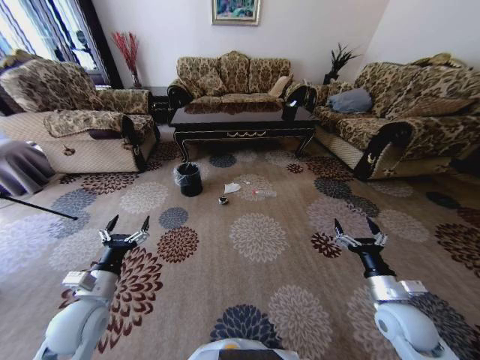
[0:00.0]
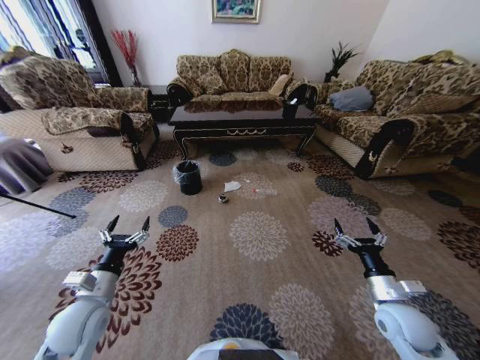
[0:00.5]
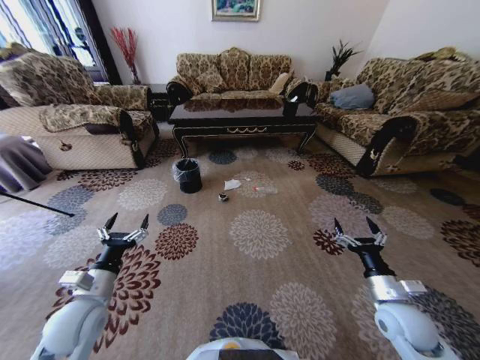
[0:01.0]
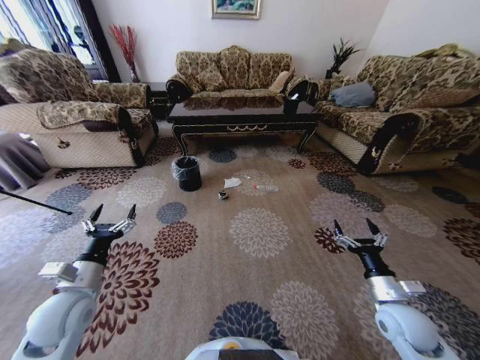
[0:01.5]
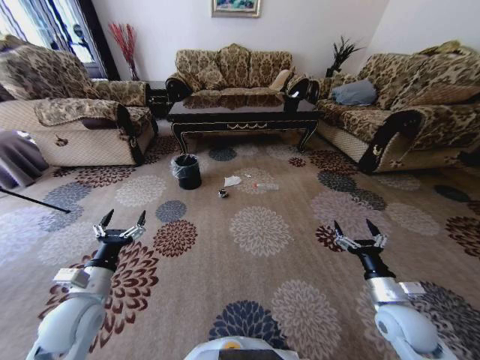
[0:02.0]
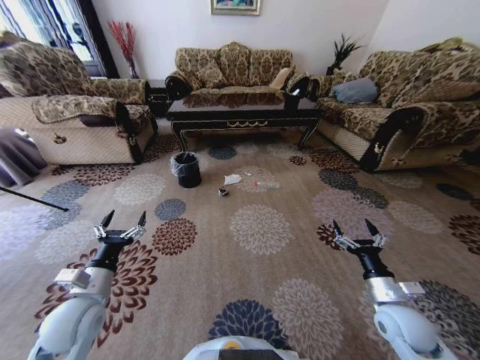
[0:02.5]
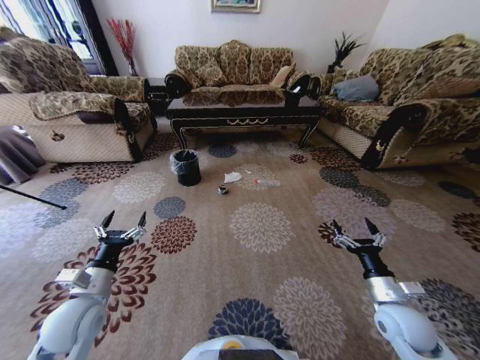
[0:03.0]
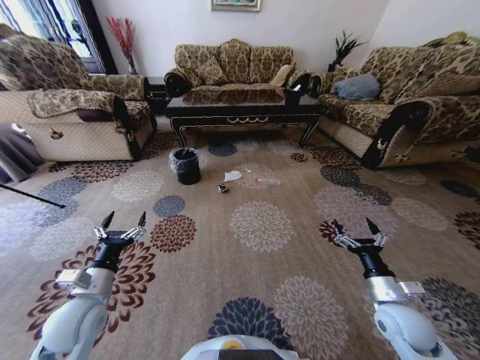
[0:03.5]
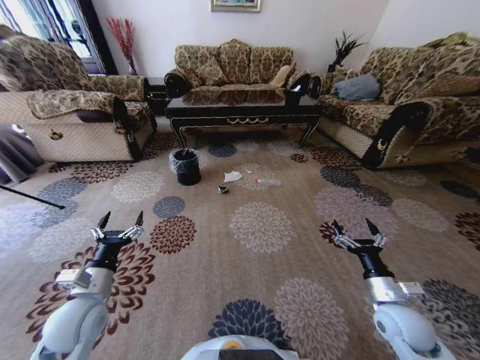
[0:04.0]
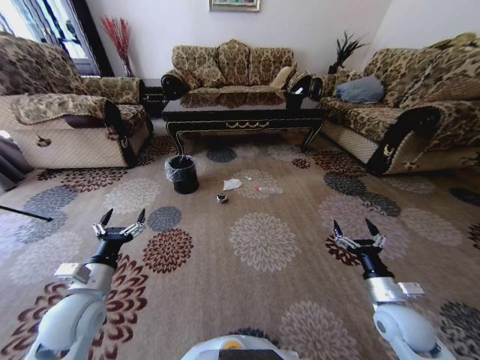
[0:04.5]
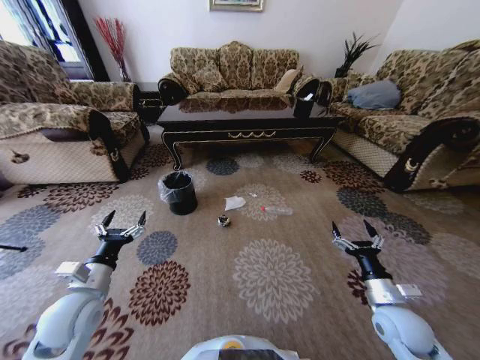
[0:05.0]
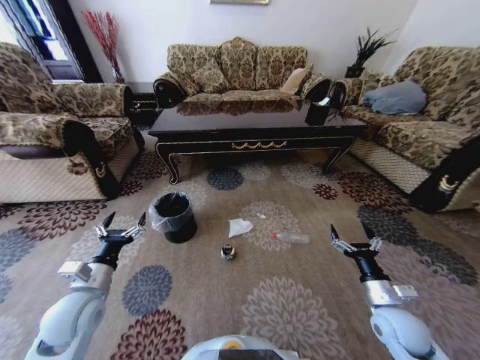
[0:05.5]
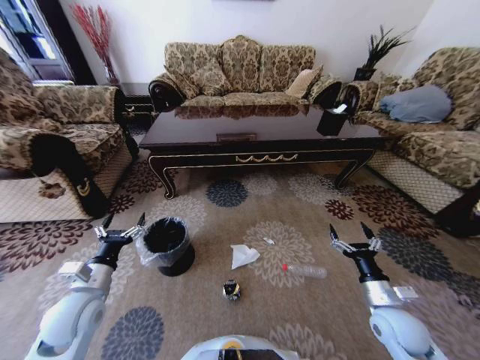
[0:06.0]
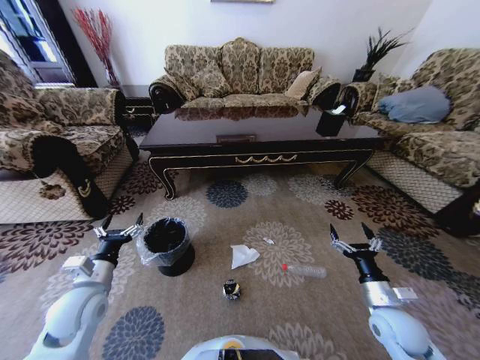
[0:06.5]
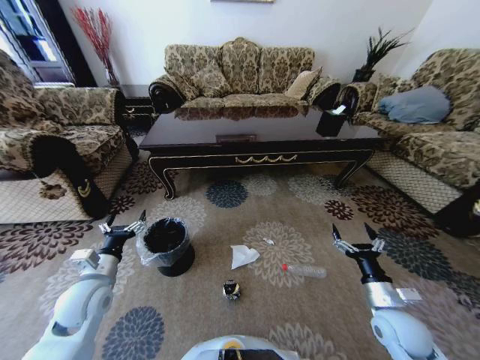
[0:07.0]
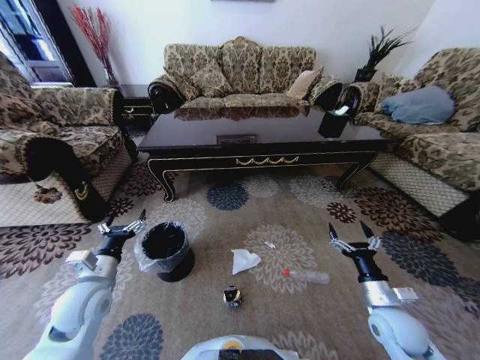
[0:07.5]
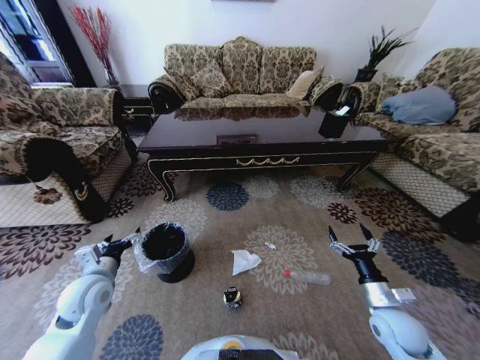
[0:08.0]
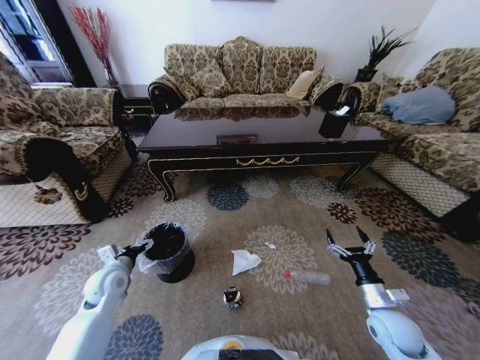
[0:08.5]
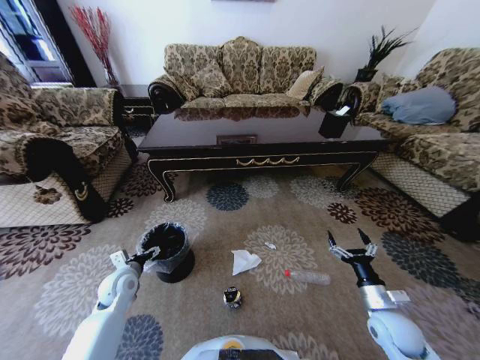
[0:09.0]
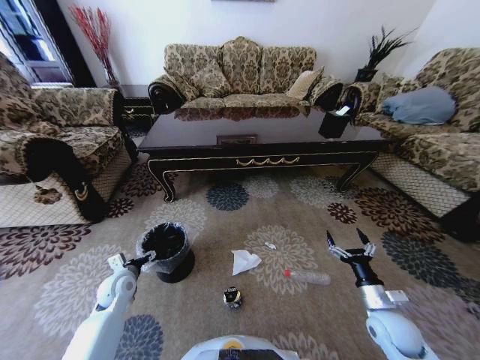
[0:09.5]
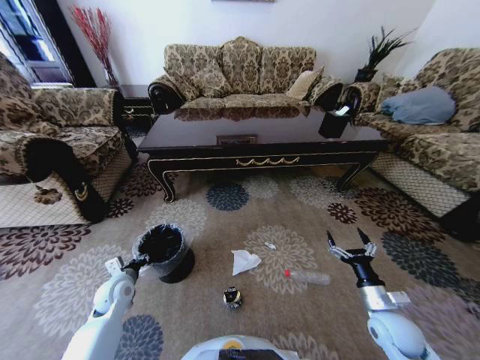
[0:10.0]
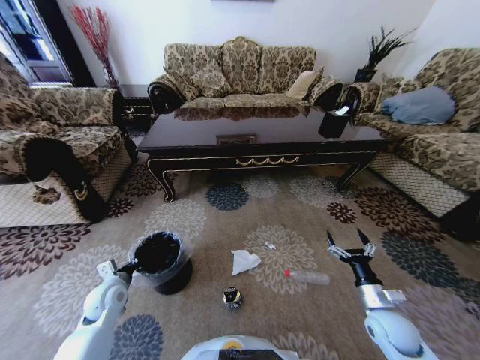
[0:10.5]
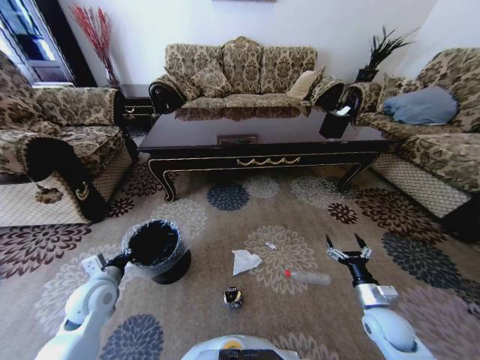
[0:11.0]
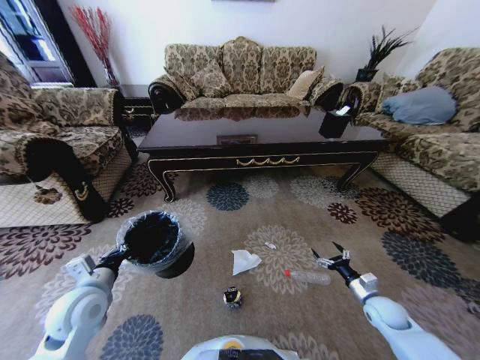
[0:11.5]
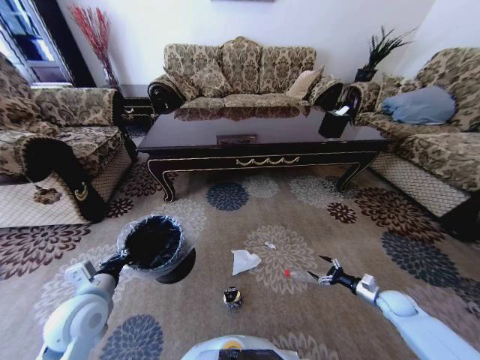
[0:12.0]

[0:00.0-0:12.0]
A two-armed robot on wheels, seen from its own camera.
Task of the whole recording: Move to the front of the table and pick up the trash from the floor, then place it into the trash bin.
0:08.0 to 0:10.0: The left gripper shifts about 10 cm downward, and closes up.
0:10.0 to 0:12.0: The left gripper moves upward and backward, about 15 cm, and closes up; the right gripper travels to the right, downward and forward by roughly 20 cm.

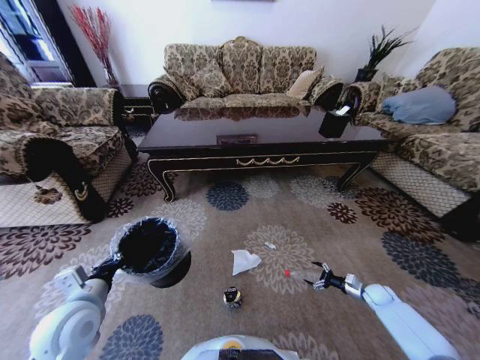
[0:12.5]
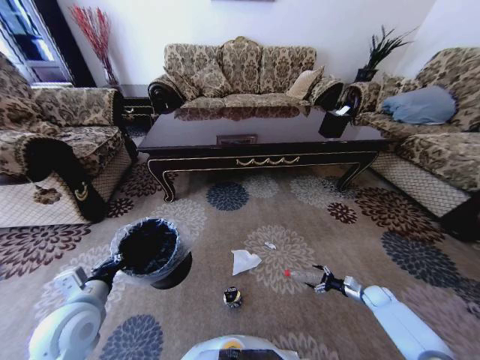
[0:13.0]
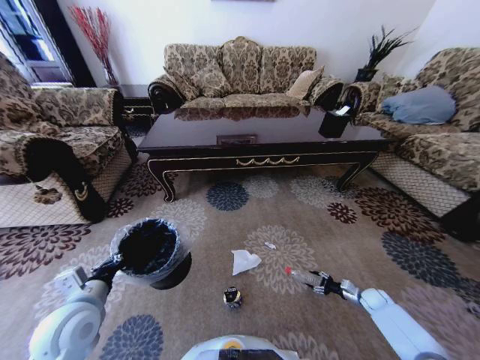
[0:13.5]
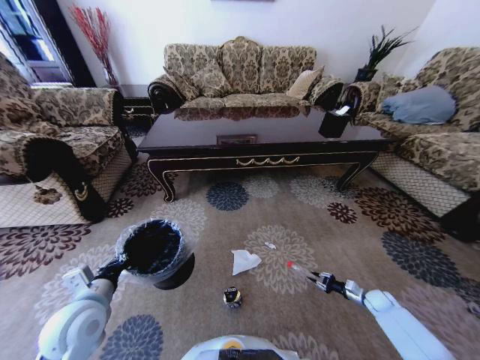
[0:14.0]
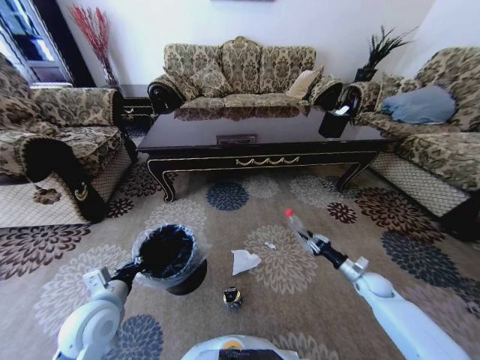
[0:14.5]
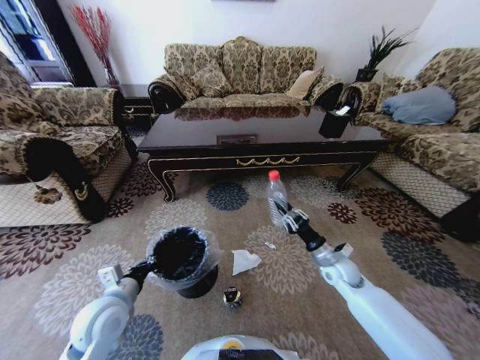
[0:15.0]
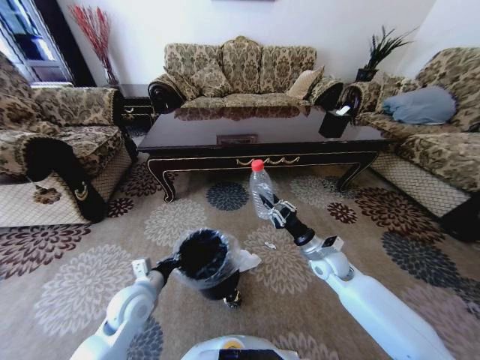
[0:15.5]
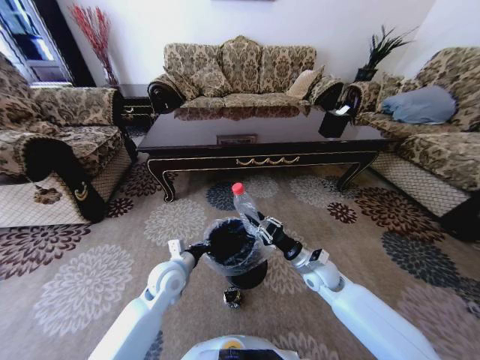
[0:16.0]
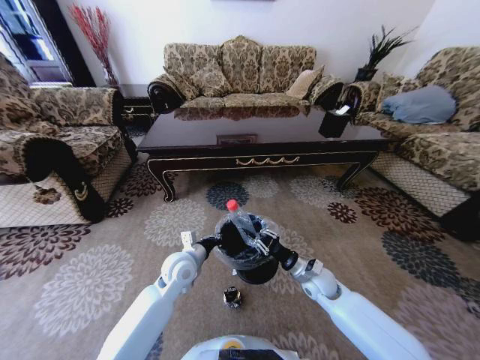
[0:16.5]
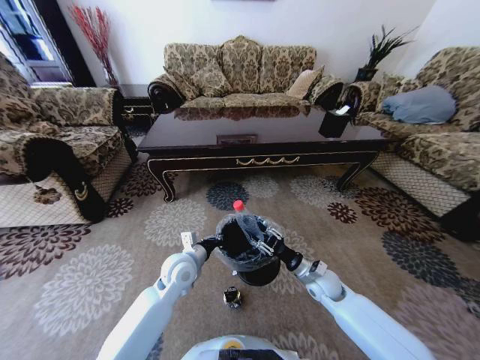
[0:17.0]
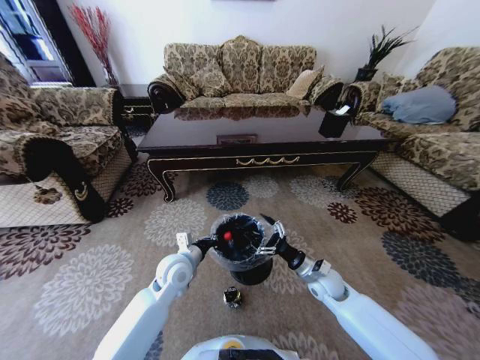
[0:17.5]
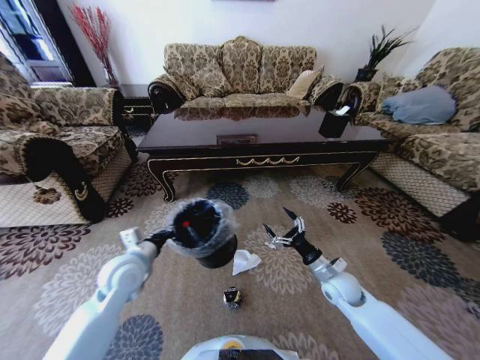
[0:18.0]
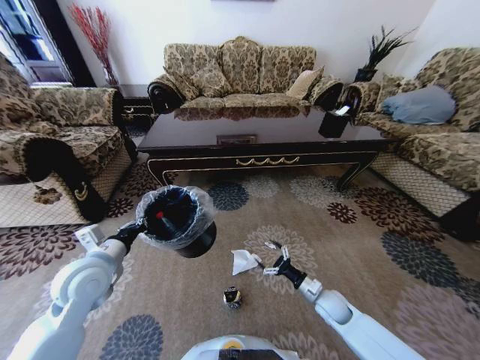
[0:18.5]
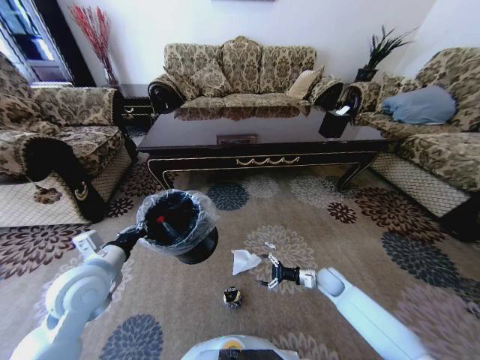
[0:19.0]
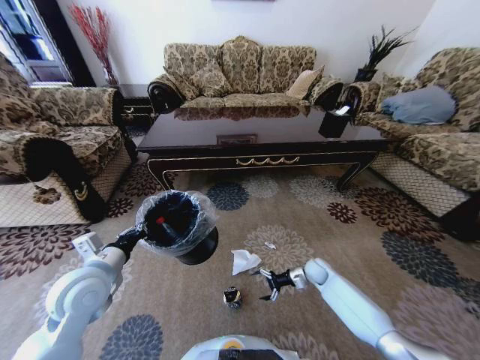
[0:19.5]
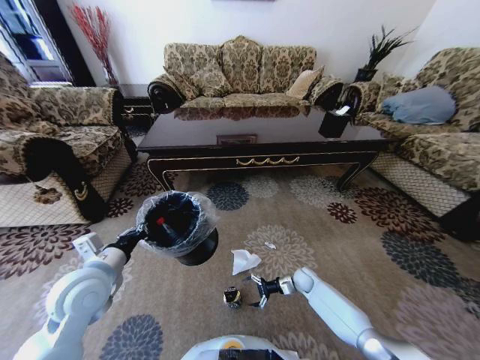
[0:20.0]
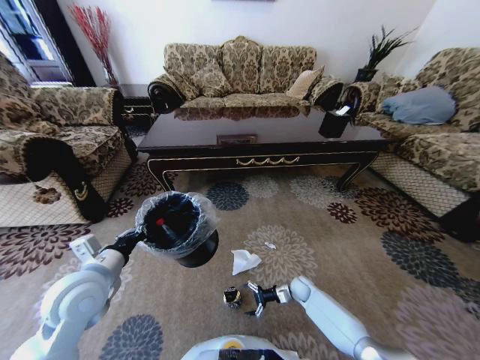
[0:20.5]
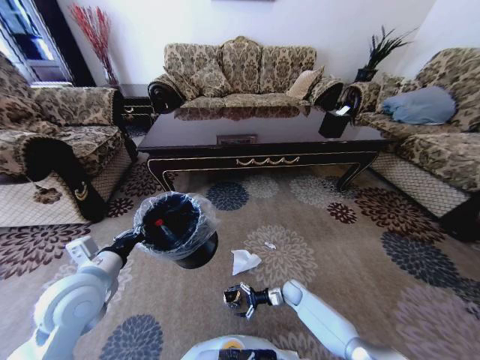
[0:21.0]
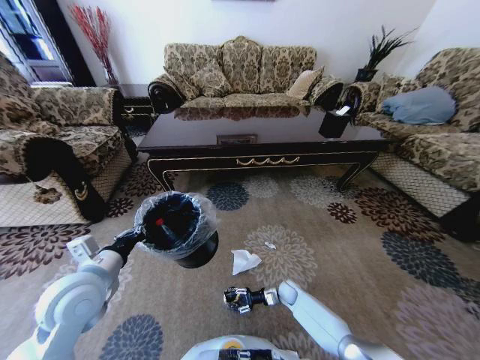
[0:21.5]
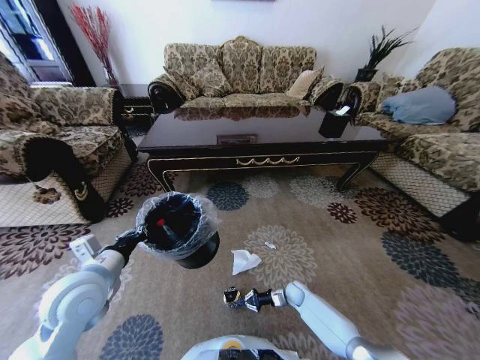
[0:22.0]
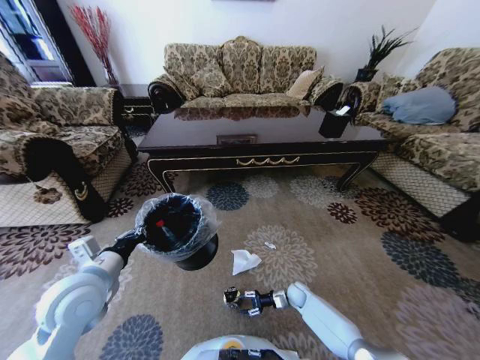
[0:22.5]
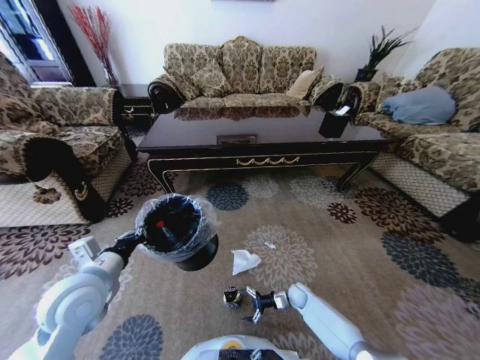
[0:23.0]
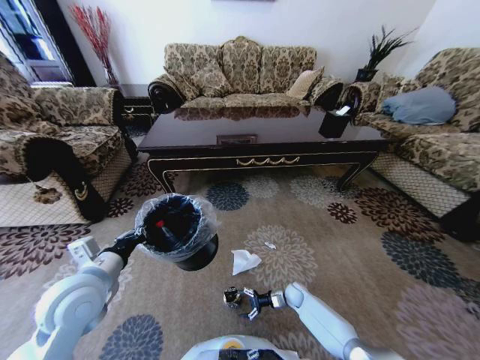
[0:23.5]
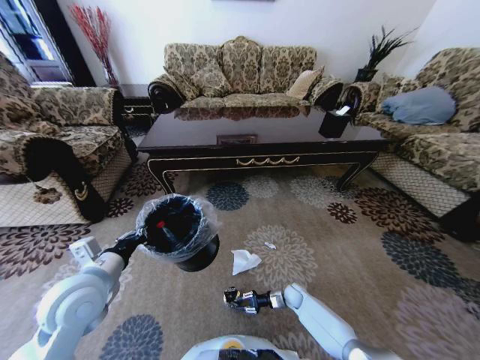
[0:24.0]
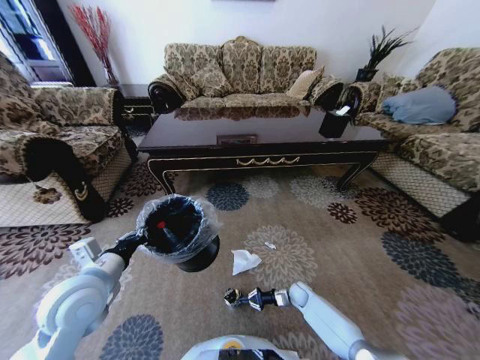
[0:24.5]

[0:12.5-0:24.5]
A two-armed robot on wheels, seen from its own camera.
Task of the whole recording: Move to the front of the table and pick up the trash from the floor, then place it into the trash bin.
0:12.5 to 0:14.5: The right gripper shifts approximately 10 cm upward and to the left, and closes up.
0:14.5 to 0:16.5: The right gripper shifts some 25 cm to the left; the left gripper travels to the right and forward by some 20 cm.
0:16.5 to 0:18.5: The left gripper moves to the left and upward, some 20 cm. The right gripper goes approximately 10 cm downward and to the right, and opens its fingers.
0:18.5 to 0:20.5: The right gripper moves downward and forward, approximately 15 cm.
0:20.5 to 0:22.5: The right gripper closes its fingers.
0:22.5 to 0:24.5: The right gripper closes its fingers.

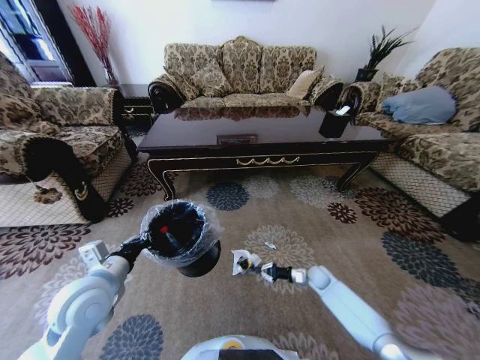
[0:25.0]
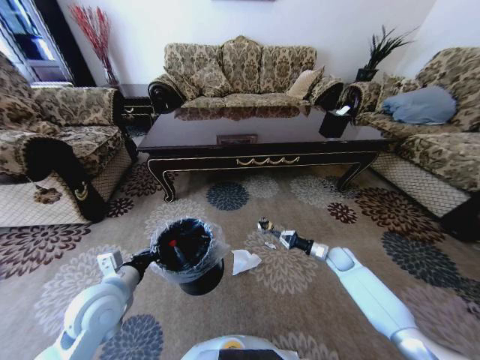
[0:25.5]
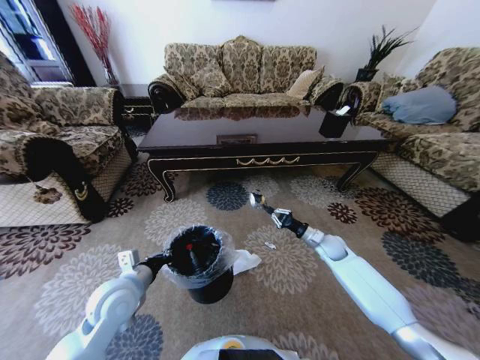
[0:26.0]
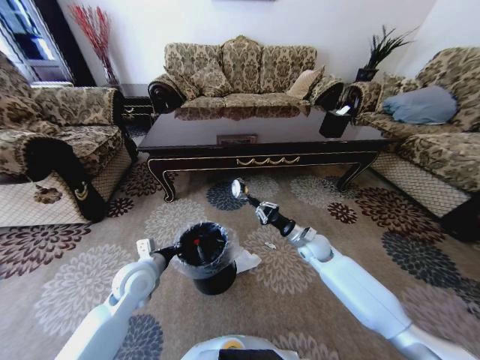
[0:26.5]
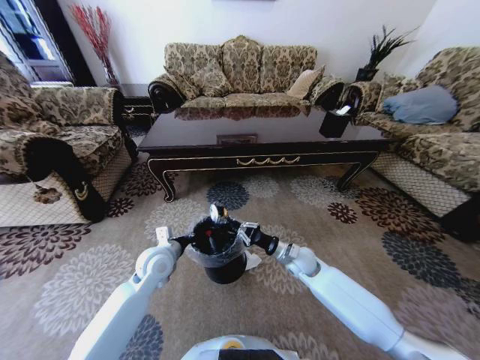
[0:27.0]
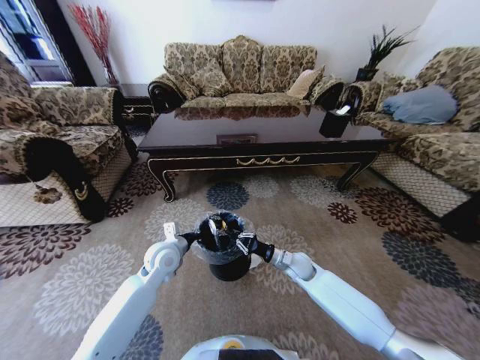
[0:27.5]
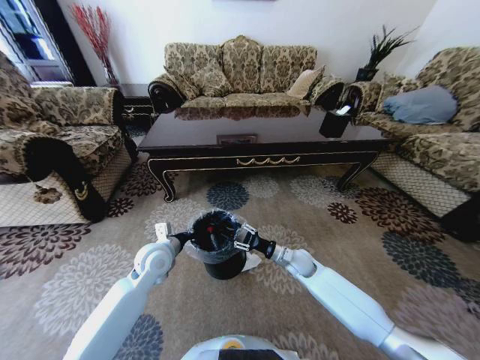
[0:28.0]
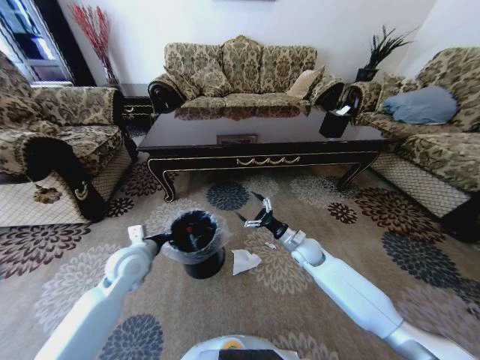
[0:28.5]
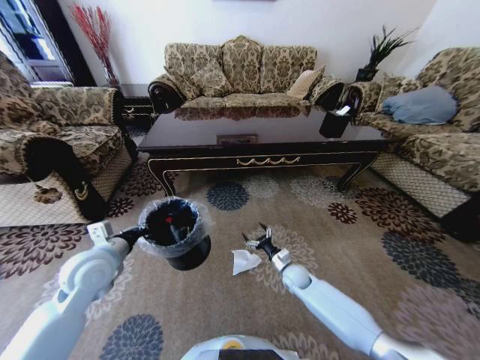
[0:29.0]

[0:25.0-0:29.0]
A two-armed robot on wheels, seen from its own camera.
Task of the whole recording: Move to the front of the table and pick up the trash from the floor, then place it into the trash bin.
0:25.0 to 0:27.0: The left gripper travels forward, to the right and downward by some 15 cm; the right gripper travels upward and to the left by some 20 cm.
0:27.0 to 0:29.0: The right gripper is displaced downward by roughly 10 cm, and opens its fingers. The left gripper goes approximately 15 cm to the left, upward and backward.
